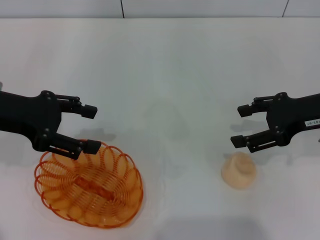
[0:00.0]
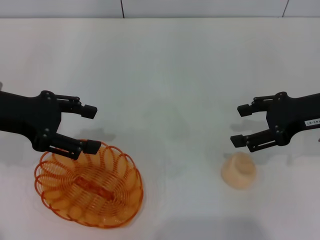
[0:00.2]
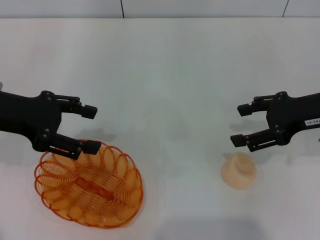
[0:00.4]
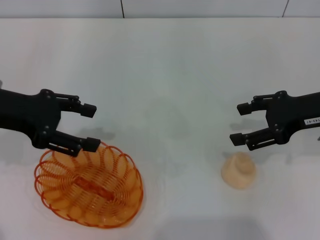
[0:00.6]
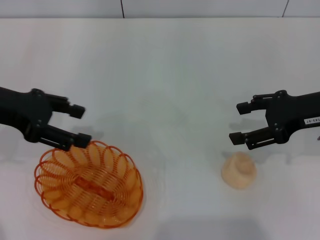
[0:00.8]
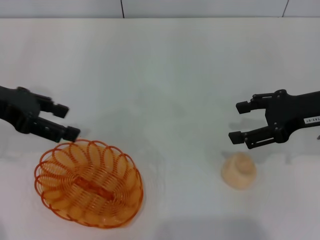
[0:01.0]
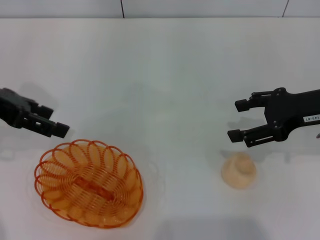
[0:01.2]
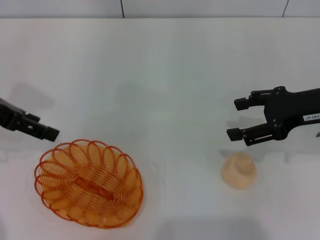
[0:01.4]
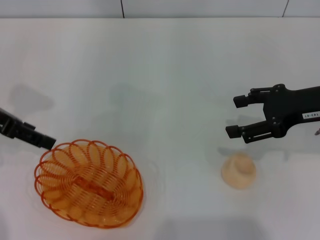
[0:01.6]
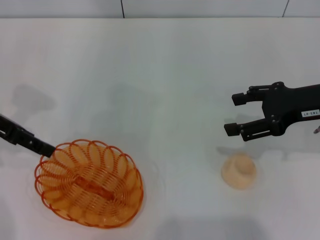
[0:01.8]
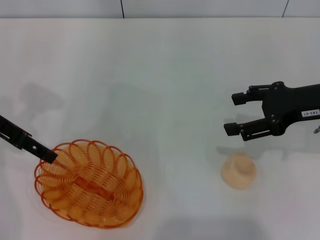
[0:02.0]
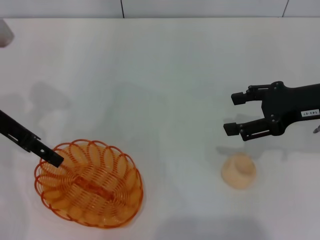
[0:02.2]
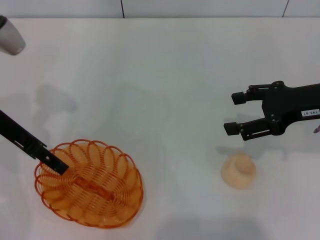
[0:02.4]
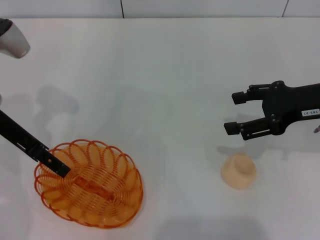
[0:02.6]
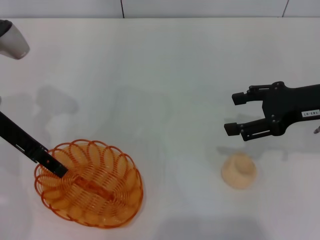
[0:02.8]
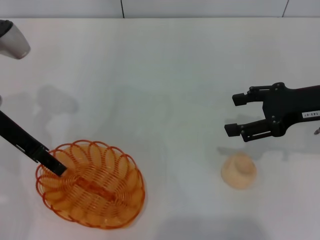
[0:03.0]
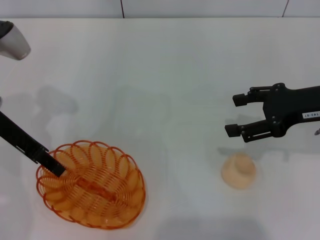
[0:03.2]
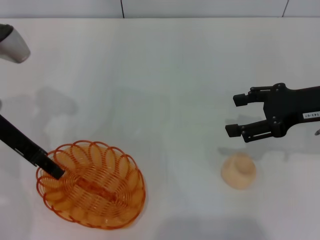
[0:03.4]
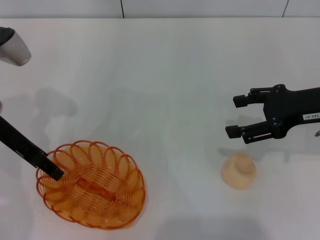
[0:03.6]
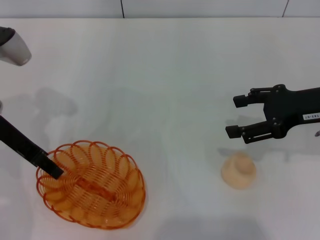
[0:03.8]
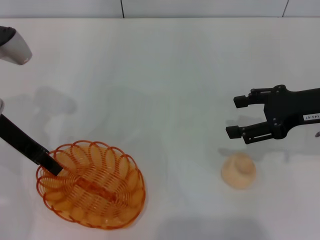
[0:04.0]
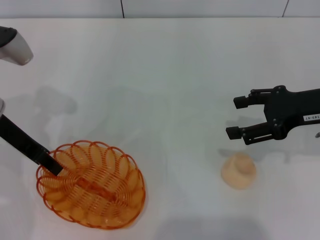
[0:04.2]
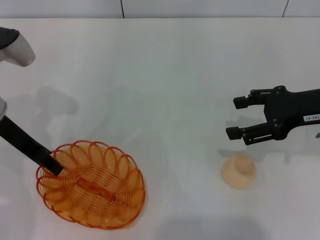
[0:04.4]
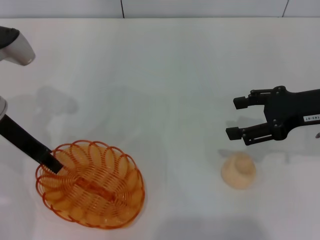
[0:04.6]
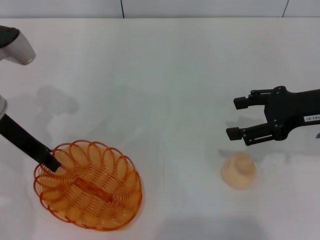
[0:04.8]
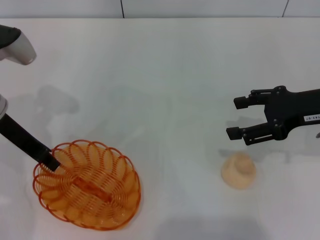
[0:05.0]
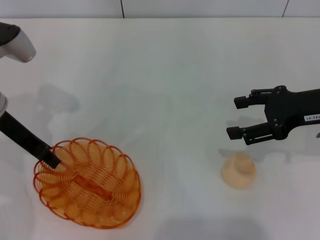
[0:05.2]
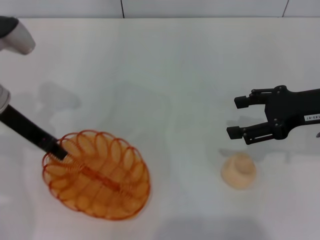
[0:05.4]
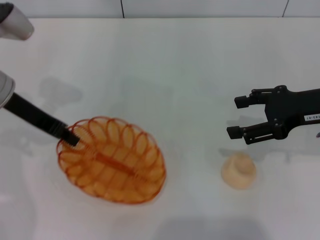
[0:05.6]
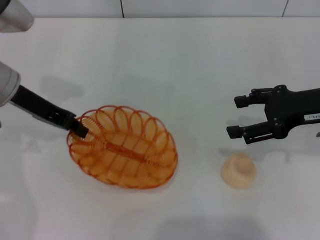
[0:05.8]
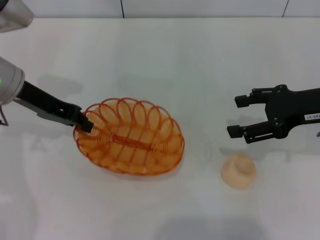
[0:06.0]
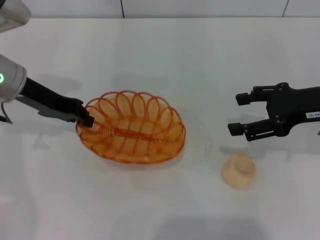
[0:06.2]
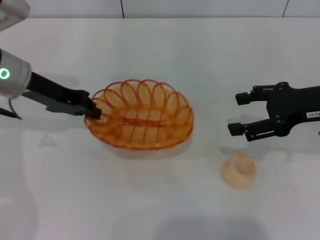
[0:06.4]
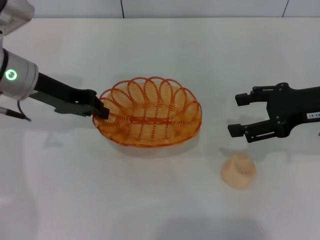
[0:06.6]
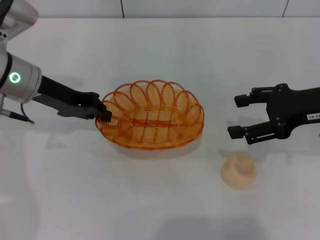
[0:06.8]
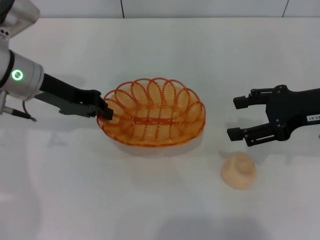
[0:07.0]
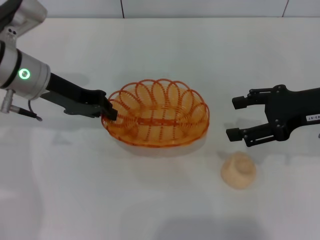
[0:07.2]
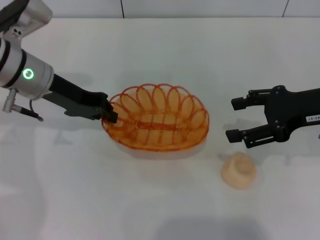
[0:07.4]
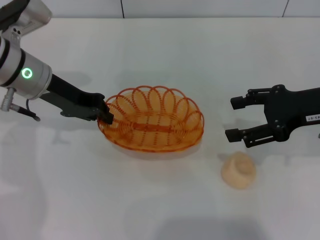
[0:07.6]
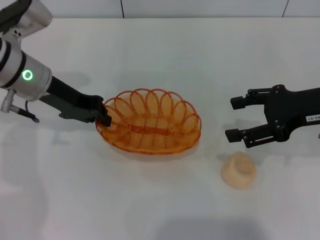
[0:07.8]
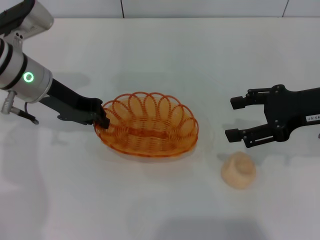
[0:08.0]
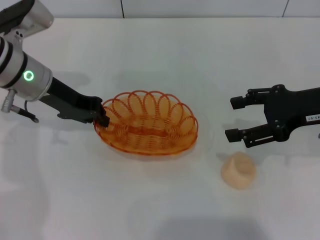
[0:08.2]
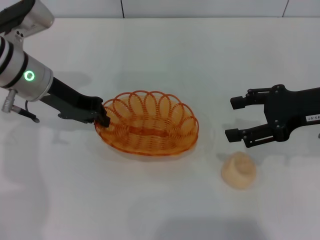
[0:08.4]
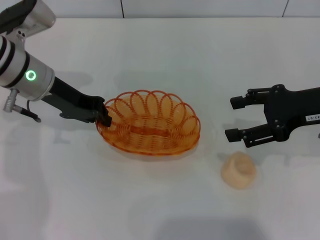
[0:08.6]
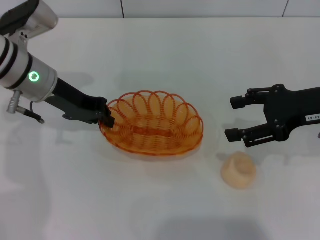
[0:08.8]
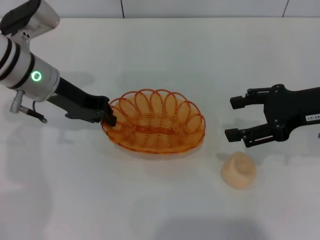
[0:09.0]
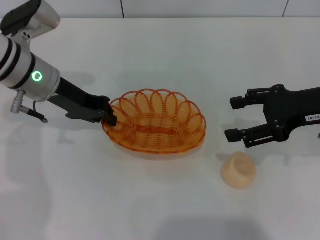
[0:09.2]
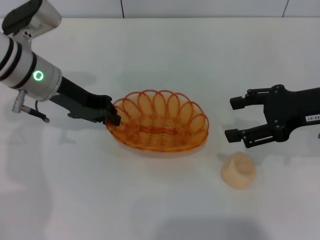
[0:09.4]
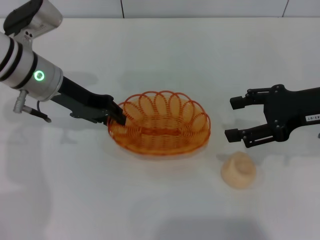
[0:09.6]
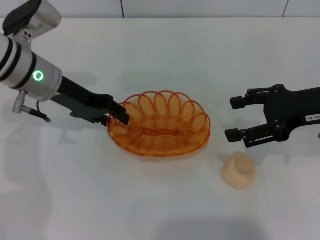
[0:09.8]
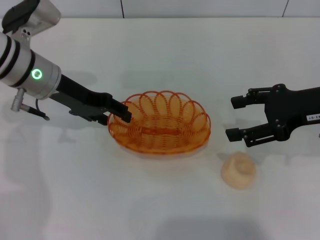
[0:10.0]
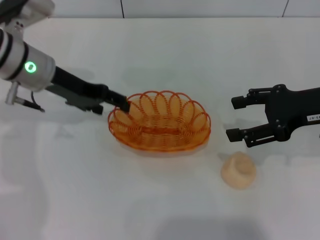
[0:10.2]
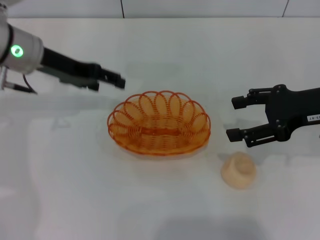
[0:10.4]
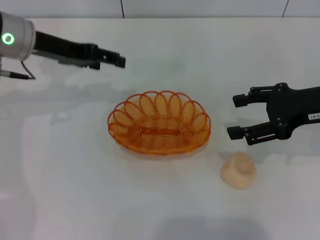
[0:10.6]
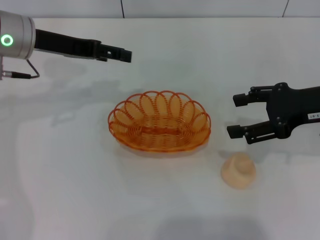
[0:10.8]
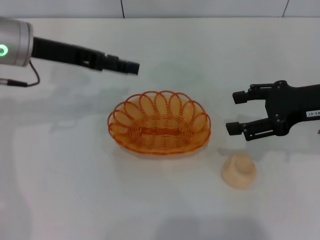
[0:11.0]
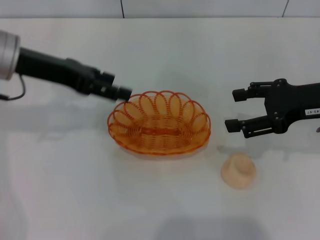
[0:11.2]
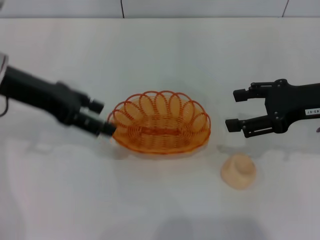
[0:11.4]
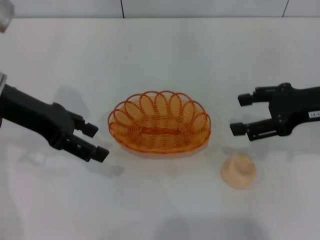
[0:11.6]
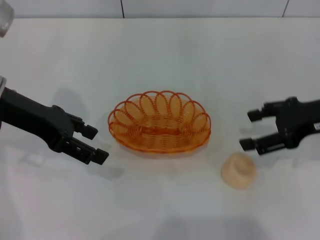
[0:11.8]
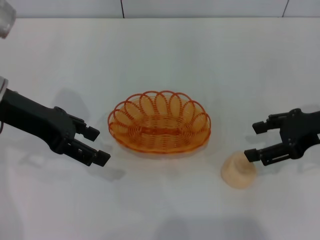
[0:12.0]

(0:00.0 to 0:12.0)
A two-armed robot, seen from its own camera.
Step, 0:00.0 - 0:07.2: Pick up the basket with the left gripper.
Step, 0:07.4 - 0:10.8: Place the basket in the center of view with the left gripper.
0:01.6 - 0:03.0: The left gripper moves approximately 5 cm.
0:03.0 - 0:04.4: The left gripper closes.
0:06.0 - 0:07.6: The grippers make only small movements.
0:07.6 - 0:09.0: Both grippers stay about where they are.
0:09.0 - 0:10.4: The left gripper opens up.
0:10.4 - 0:12.0: The left gripper shifts roughly 5 cm backward.

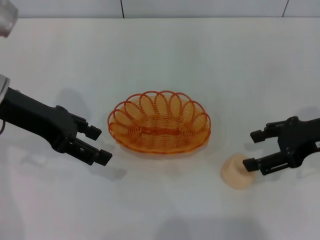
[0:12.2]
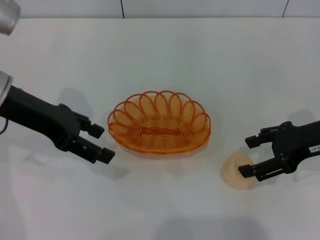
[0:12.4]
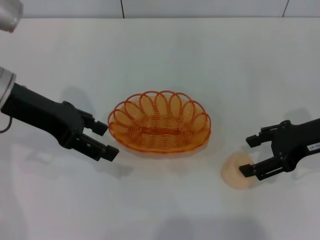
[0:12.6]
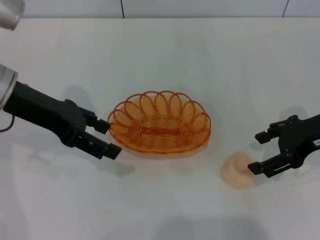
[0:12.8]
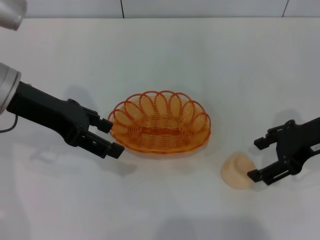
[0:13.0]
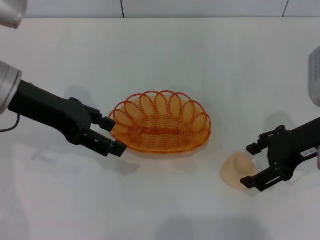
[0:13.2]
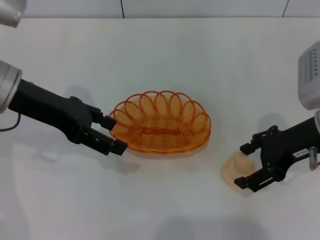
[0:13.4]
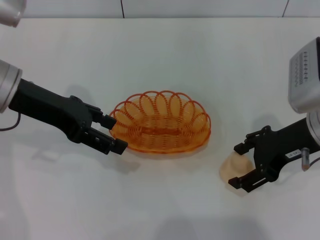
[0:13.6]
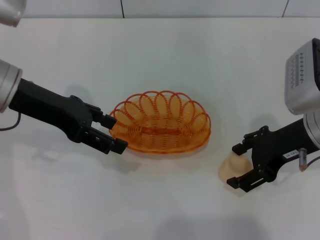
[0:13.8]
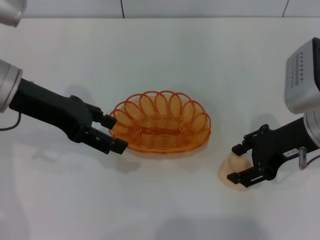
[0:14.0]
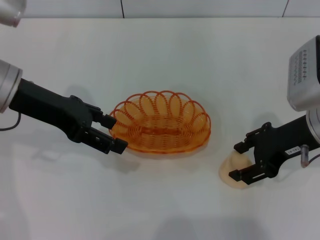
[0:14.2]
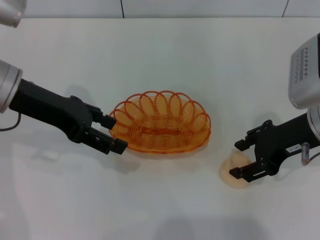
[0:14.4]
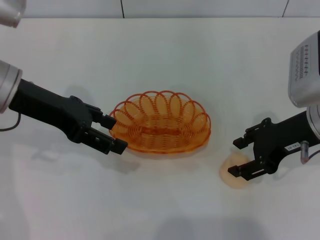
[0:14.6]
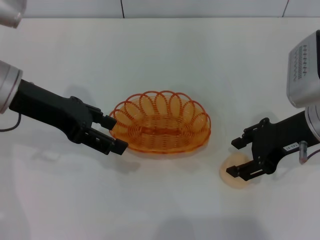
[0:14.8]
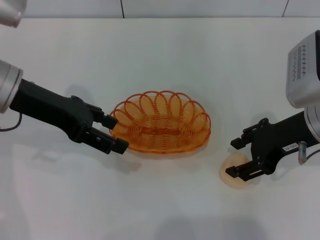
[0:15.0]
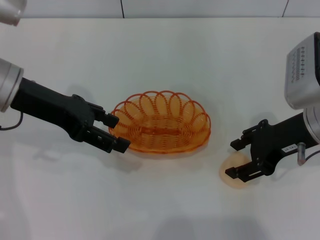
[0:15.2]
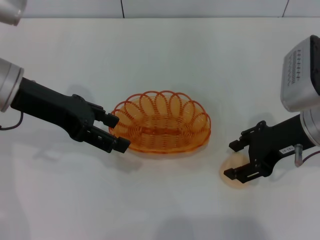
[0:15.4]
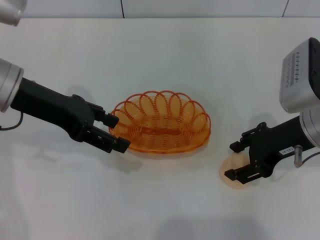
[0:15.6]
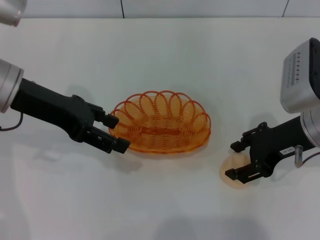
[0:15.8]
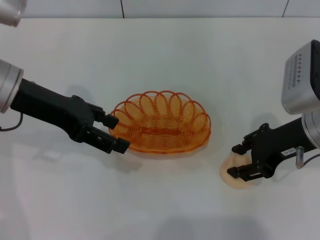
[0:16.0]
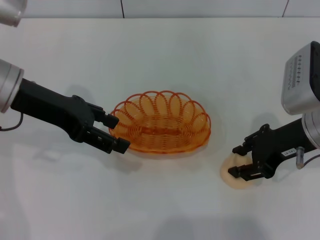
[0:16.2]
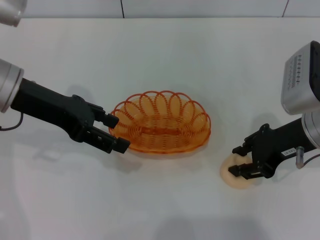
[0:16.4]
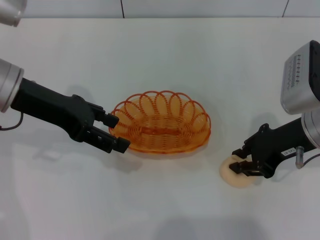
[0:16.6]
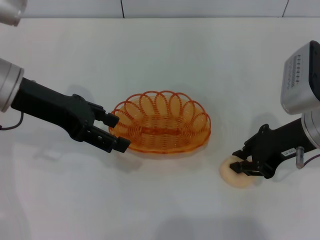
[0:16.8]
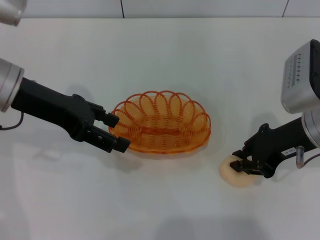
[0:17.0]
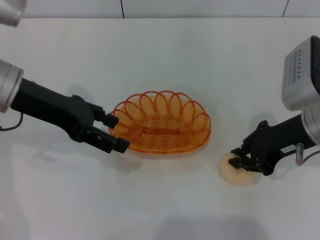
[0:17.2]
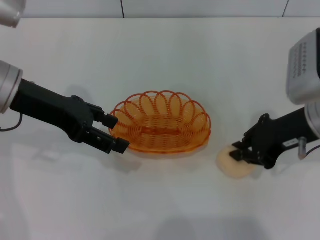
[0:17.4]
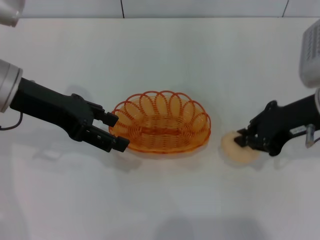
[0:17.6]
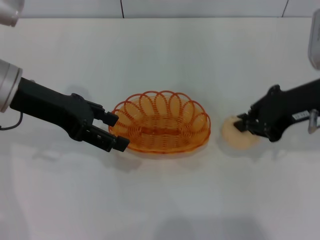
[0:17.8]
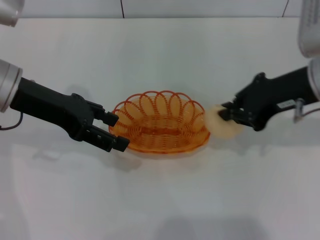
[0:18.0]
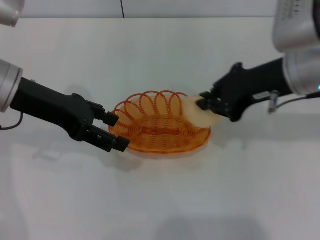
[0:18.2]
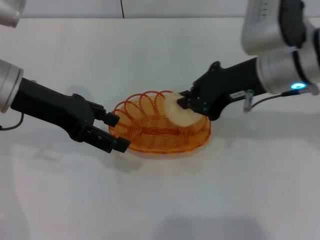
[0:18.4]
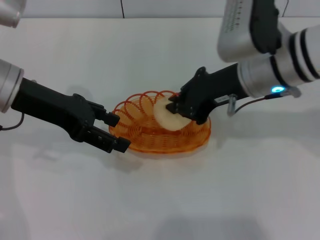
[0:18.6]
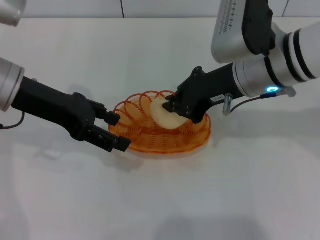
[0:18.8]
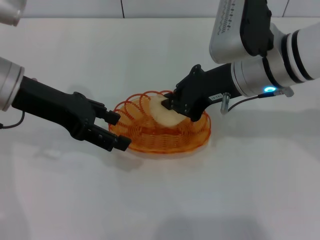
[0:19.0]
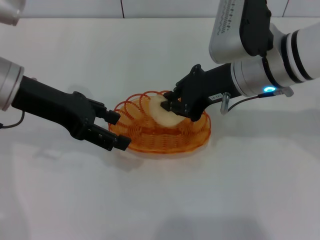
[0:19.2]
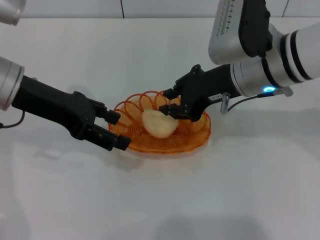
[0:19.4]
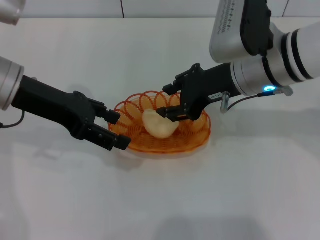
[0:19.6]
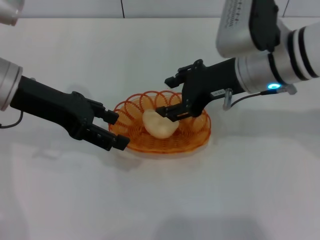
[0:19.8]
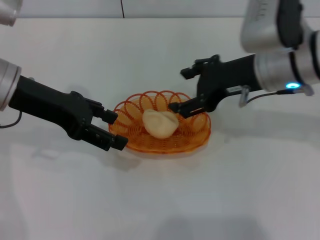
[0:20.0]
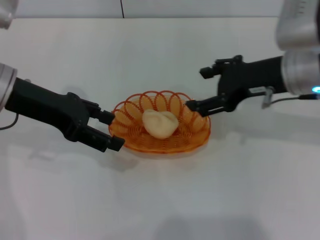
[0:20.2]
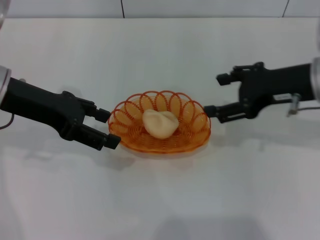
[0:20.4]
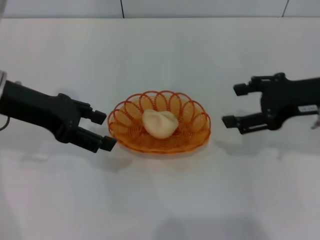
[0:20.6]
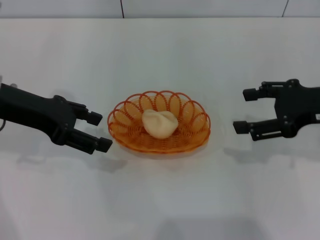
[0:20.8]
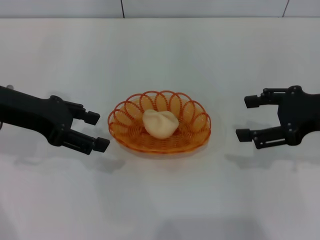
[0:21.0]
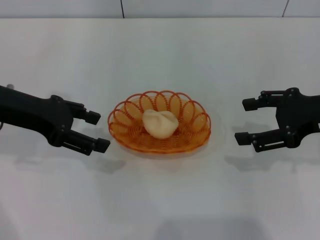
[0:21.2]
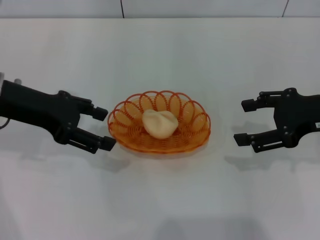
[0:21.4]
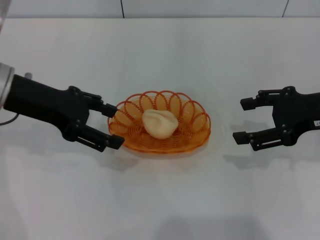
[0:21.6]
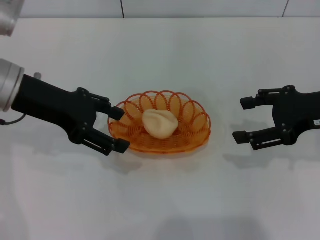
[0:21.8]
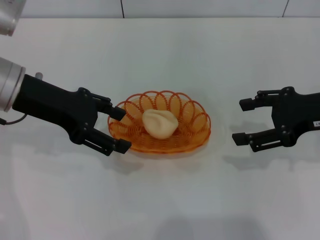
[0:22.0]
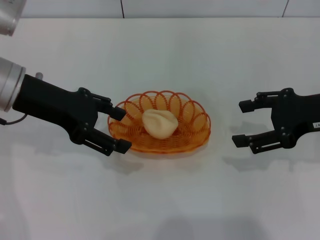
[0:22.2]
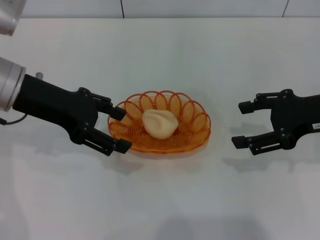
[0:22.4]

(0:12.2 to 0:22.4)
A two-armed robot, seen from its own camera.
Step, 0:12.2 - 0:17.4: Pick up the egg yolk pastry with the right gripper.
Step, 0:17.6 - 0:20.4: Place the egg yolk pastry into the basket with the right gripper.
0:12.2 - 0:13.6: The right gripper travels to the left by about 5 cm.
0:13.6 - 0:16.6: The two grippers keep their place.
0:16.6 - 0:18.0: The right gripper heads upward, covering roughly 5 cm, and closes up.
0:18.0 - 0:19.4: The right gripper goes about 10 cm to the left.
0:19.4 - 0:21.0: The right gripper goes about 15 cm to the right, and opens its fingers.
0:21.0 - 0:22.4: There are only small adjustments of the grippers.
